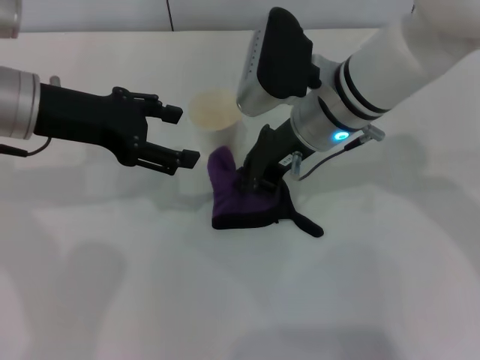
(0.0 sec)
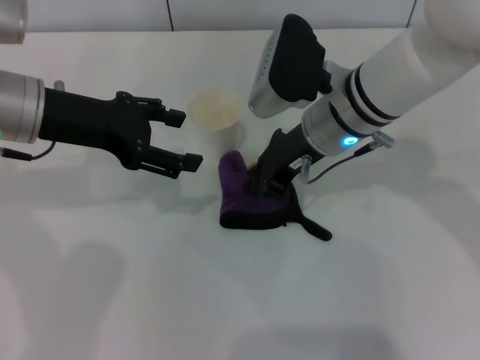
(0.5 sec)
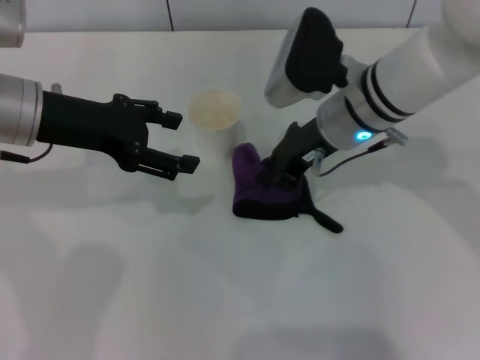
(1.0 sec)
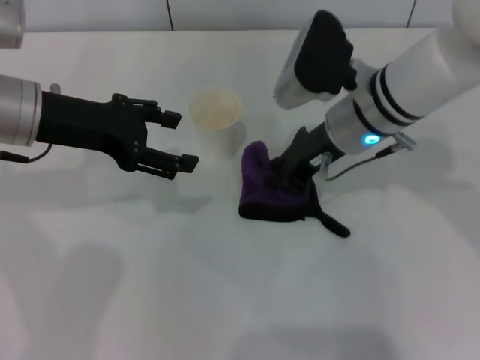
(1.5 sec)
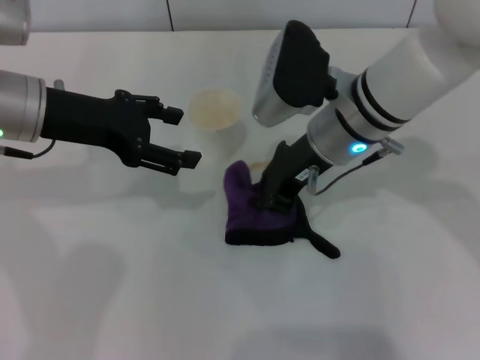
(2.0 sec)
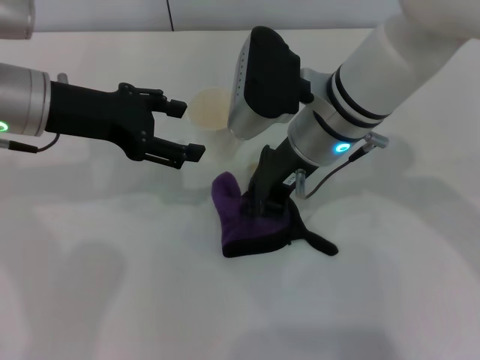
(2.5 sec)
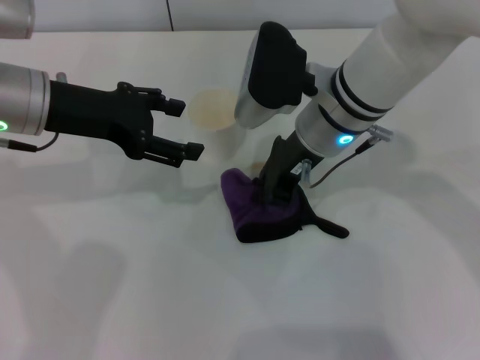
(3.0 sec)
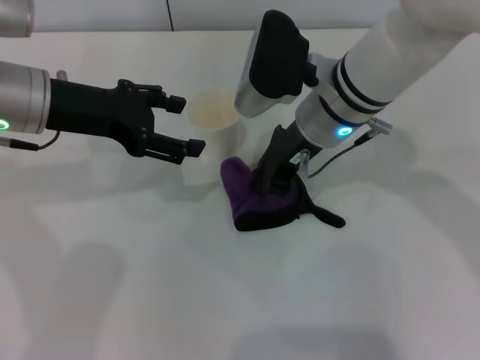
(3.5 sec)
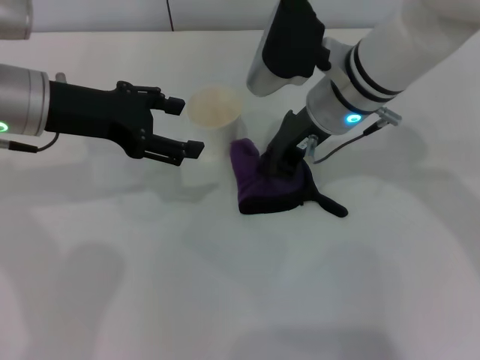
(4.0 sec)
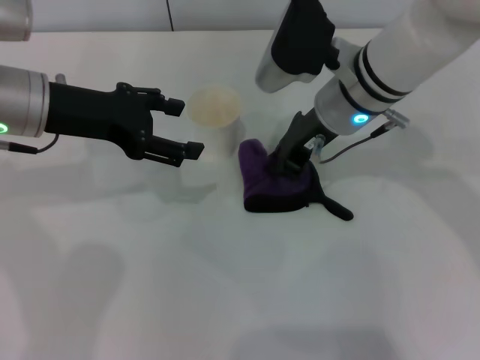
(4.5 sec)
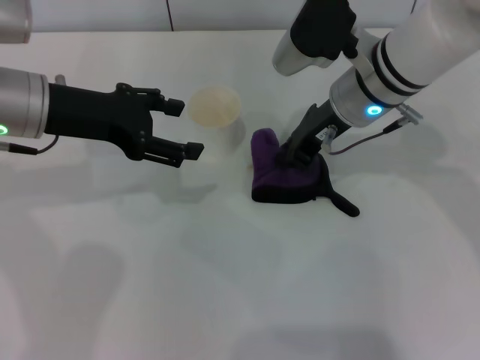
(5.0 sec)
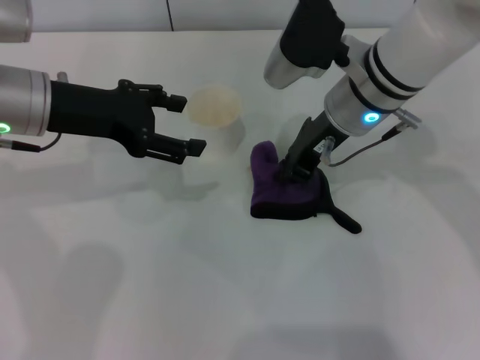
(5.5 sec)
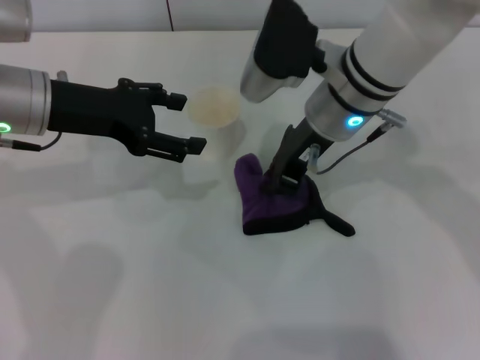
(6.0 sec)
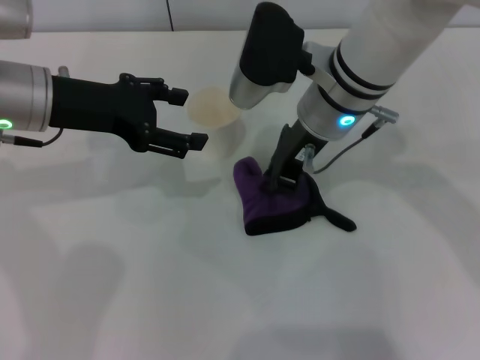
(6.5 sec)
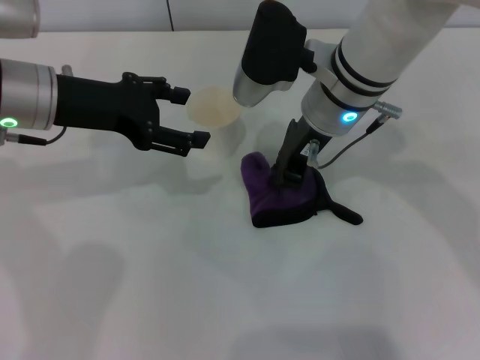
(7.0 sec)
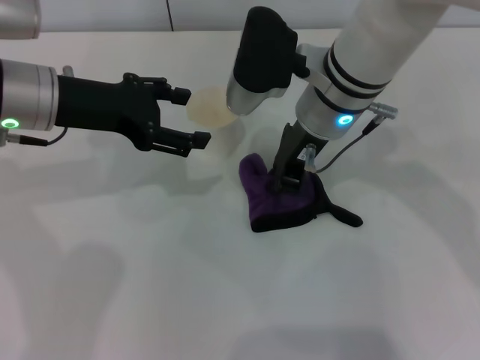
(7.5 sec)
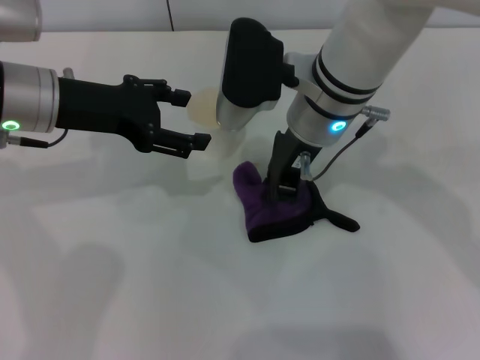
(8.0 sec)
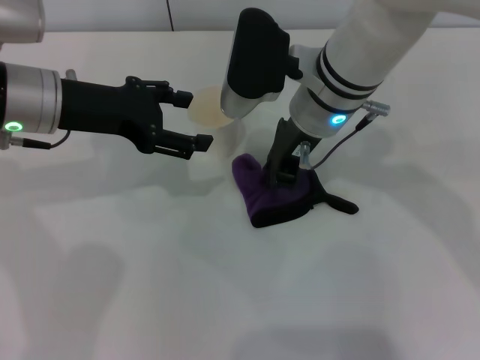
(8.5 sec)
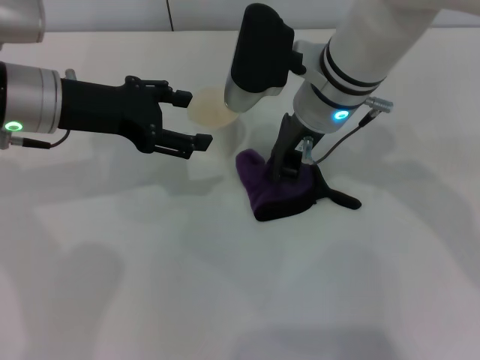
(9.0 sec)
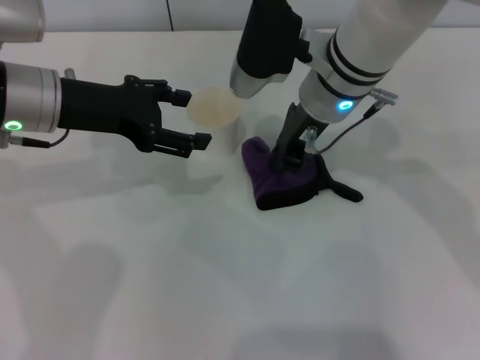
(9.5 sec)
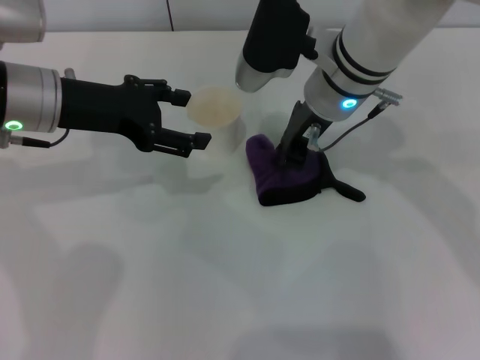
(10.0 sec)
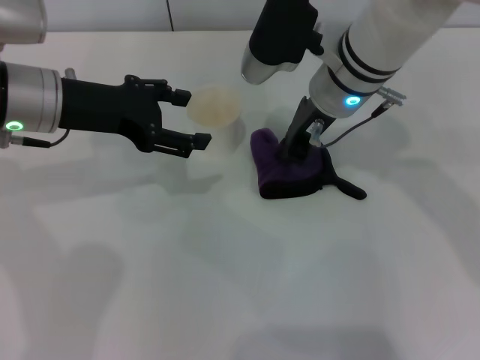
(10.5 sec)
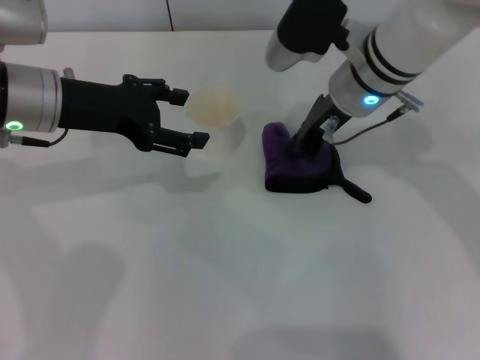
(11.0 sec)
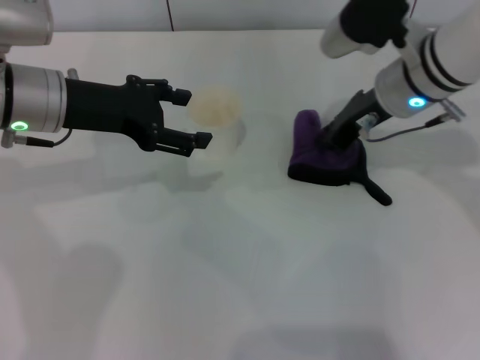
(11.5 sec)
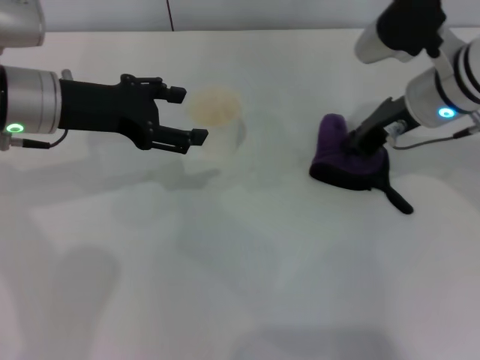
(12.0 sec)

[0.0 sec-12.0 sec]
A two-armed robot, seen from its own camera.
0.0 sec to 10.0 sec: The grippers stay close to where they were, moving slightly.
10.0 sec to 12.0 sec: The right gripper shifts roughly 10 cm to the right.

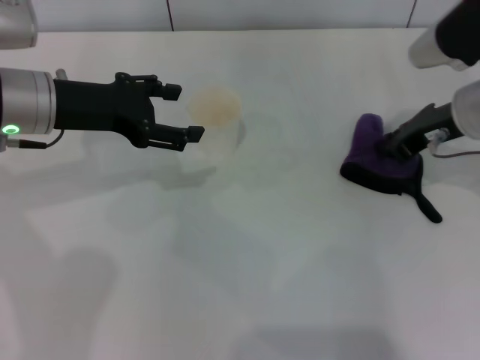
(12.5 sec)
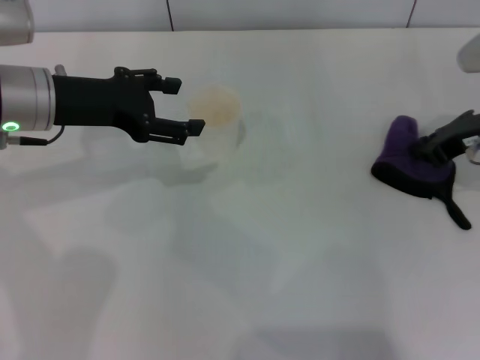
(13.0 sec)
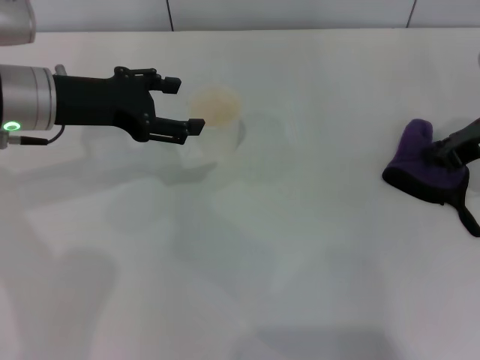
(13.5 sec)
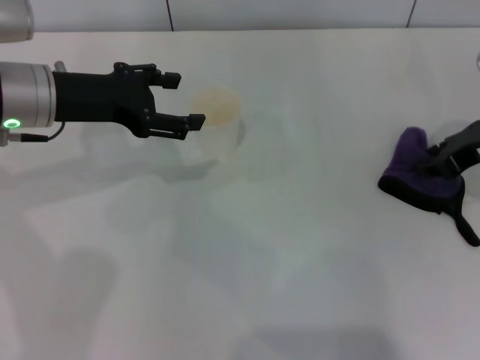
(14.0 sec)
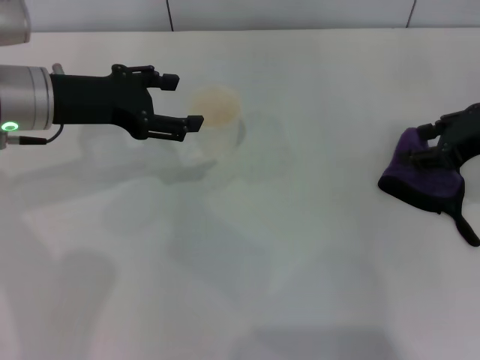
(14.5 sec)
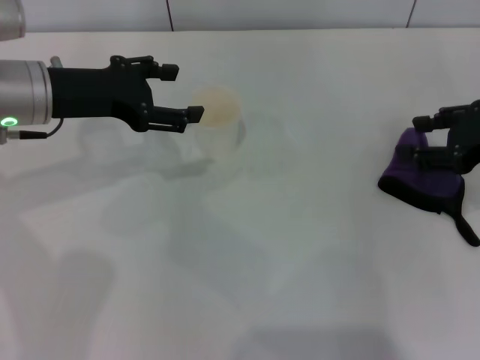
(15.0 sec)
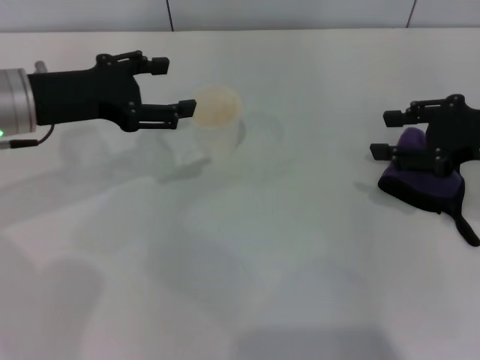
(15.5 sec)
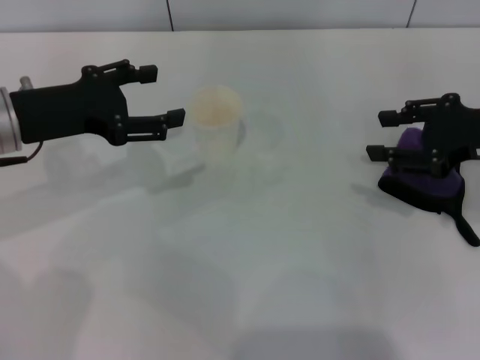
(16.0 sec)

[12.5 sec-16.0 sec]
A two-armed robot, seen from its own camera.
Step, 13.5 sec to 14.5 sec: Place the rag on the table with the right gripper.
12.5 sec to 14.5 sec: The right gripper moves to the right, about 5 cm, and opens up.
